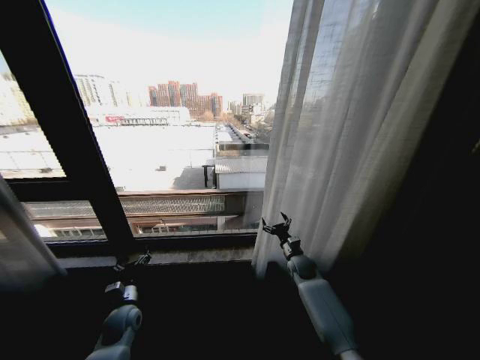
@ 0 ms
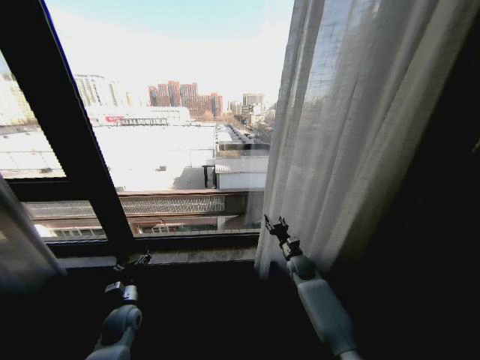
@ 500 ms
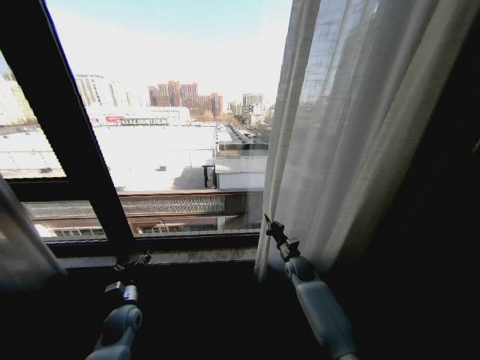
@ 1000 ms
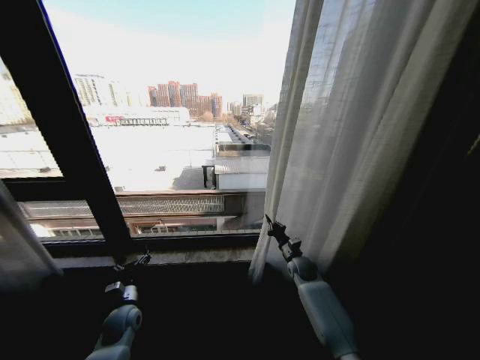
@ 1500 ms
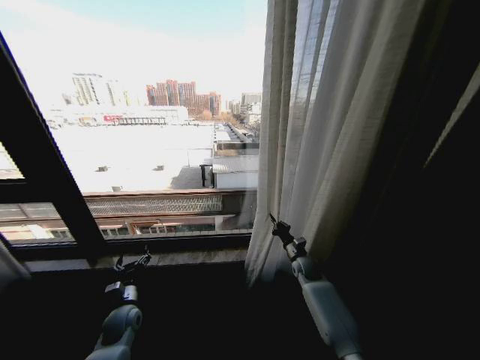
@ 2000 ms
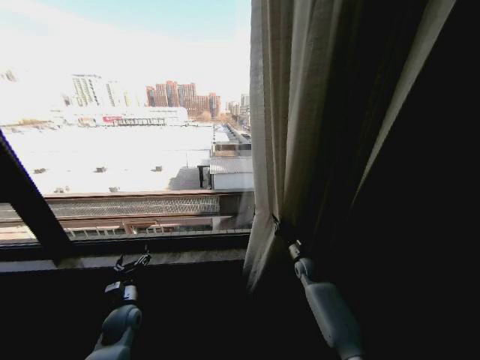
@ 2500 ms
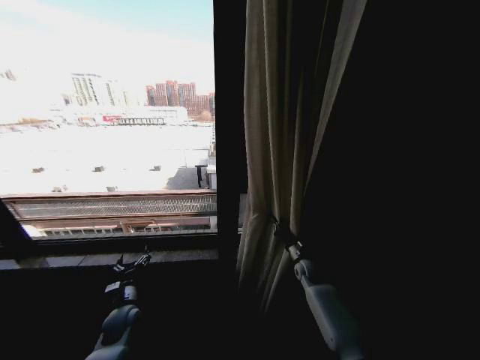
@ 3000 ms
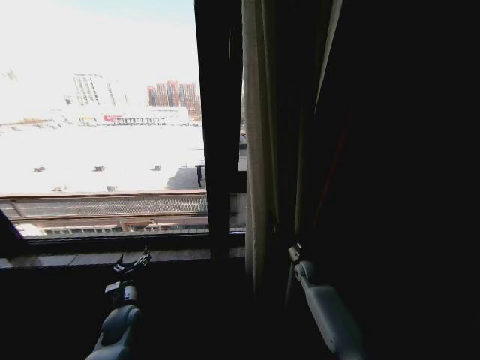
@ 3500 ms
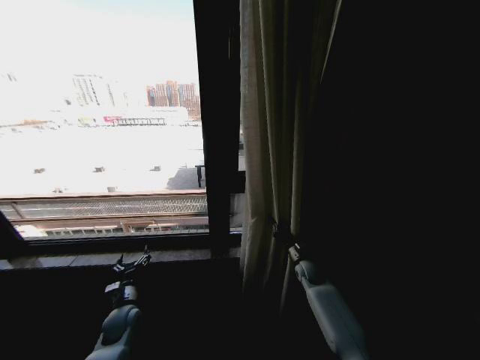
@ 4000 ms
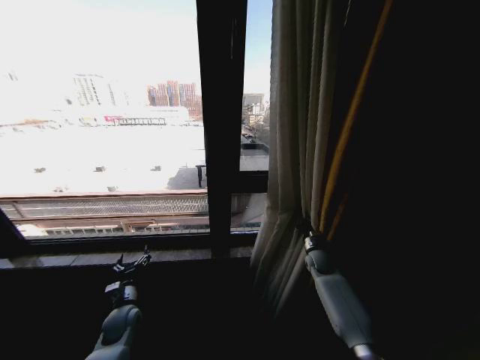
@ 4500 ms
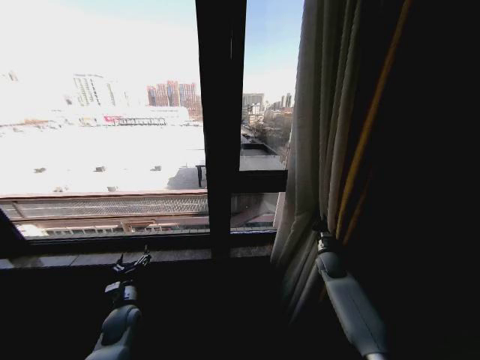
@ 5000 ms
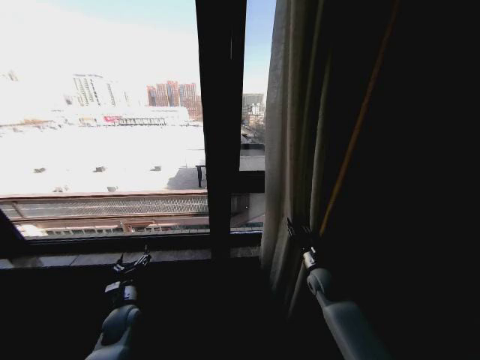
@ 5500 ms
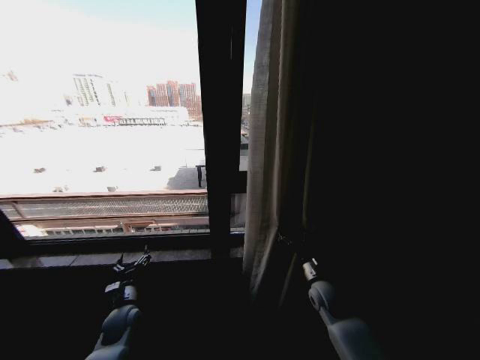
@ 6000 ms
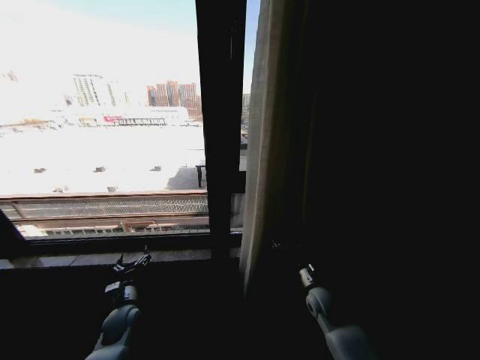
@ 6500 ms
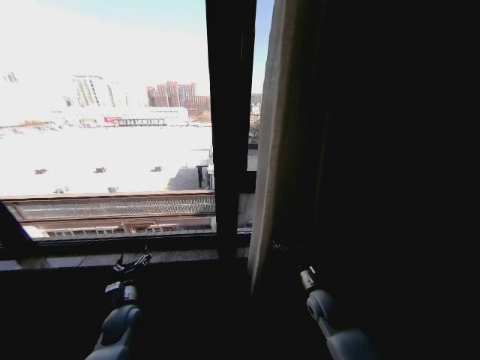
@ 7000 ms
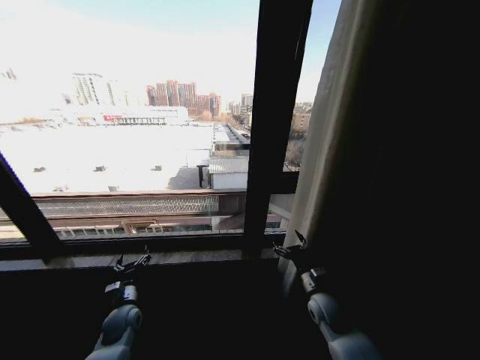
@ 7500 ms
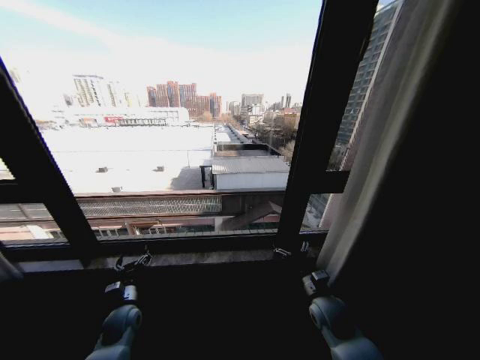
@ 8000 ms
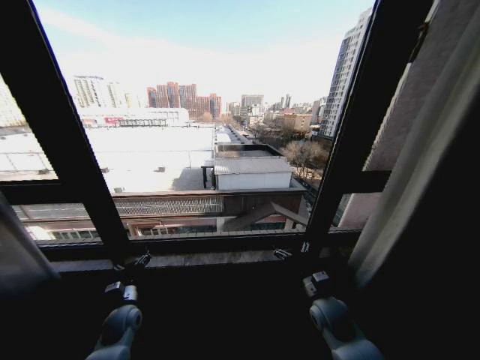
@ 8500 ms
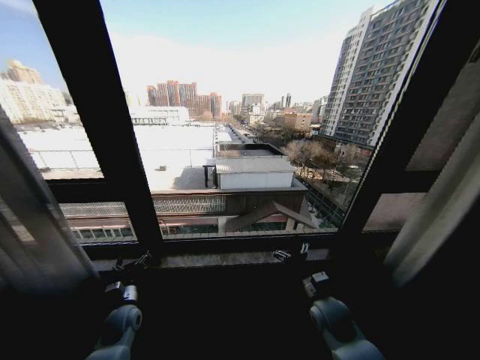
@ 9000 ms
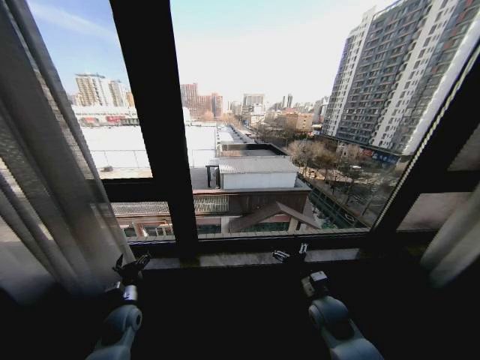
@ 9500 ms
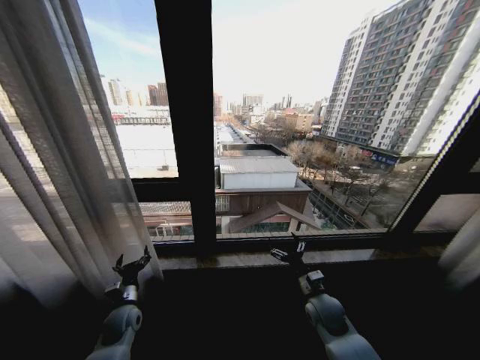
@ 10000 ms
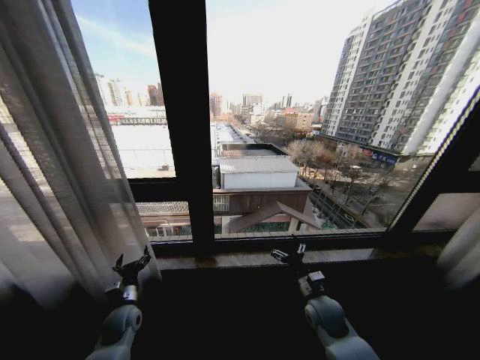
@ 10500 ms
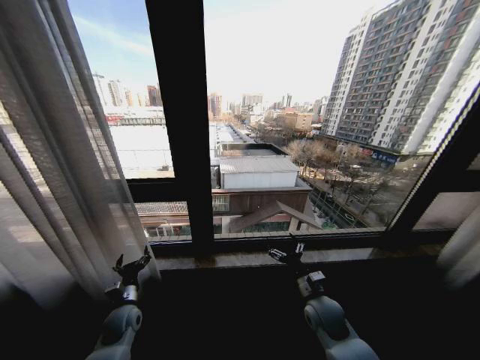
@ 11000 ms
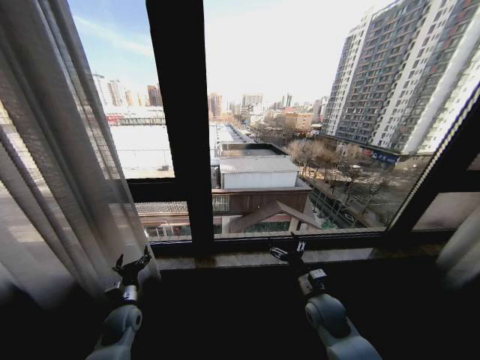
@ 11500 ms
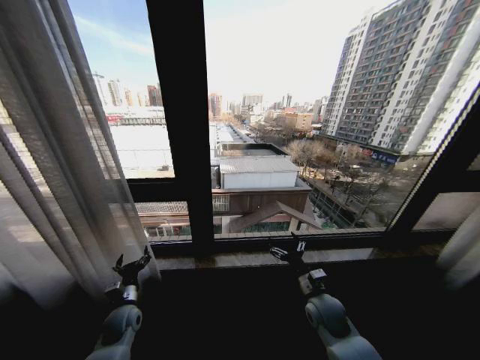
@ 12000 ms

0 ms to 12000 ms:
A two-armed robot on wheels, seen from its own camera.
Task of the whole recording: Open the curtains by pulling them apart, changing their state from closed to fully open.
0 ms to 2000 ms: The right gripper closes its fingers.
4000 ms to 6000 ms: The right gripper travels backward by some 10 cm, and opens.
10000 ms to 12000 ms: There are only small adjustments of the grippers.

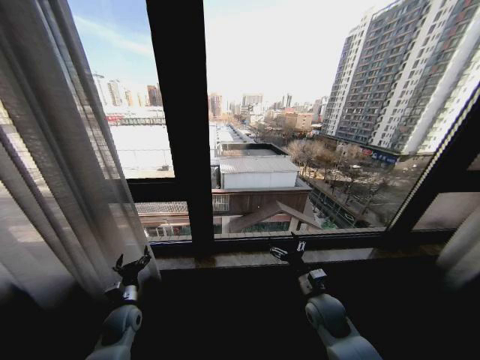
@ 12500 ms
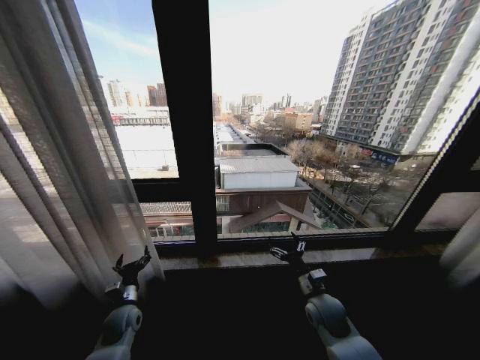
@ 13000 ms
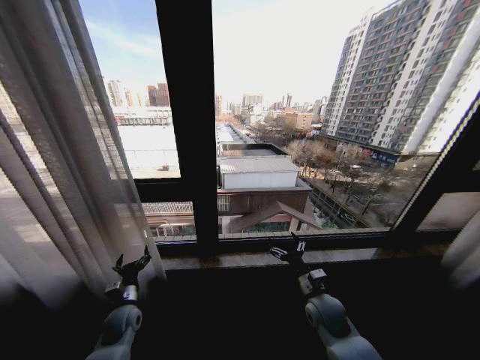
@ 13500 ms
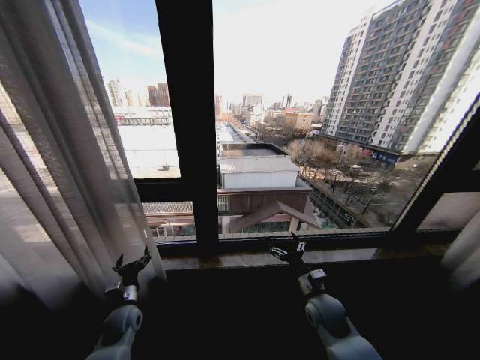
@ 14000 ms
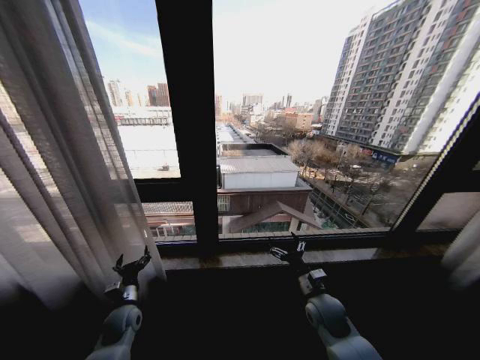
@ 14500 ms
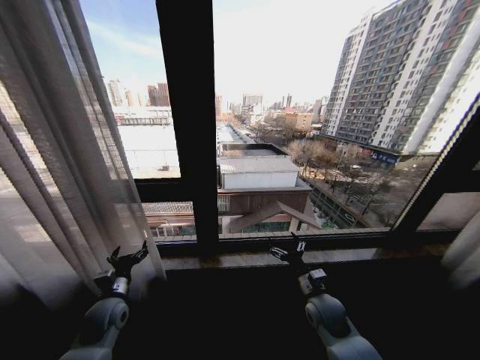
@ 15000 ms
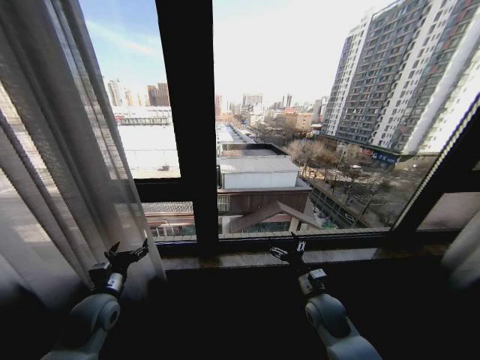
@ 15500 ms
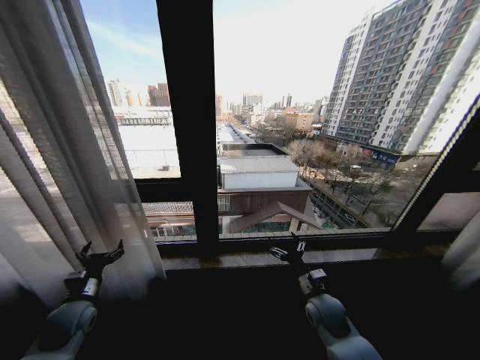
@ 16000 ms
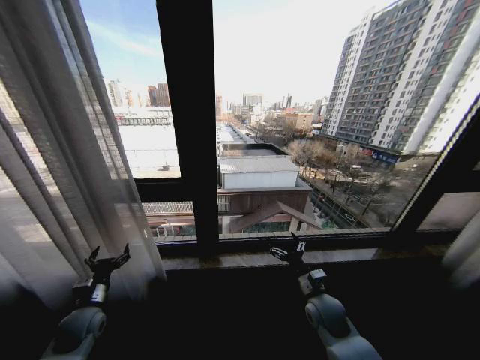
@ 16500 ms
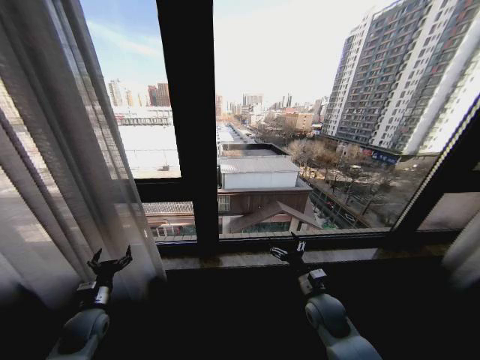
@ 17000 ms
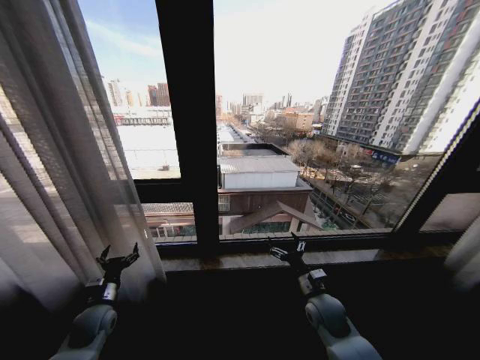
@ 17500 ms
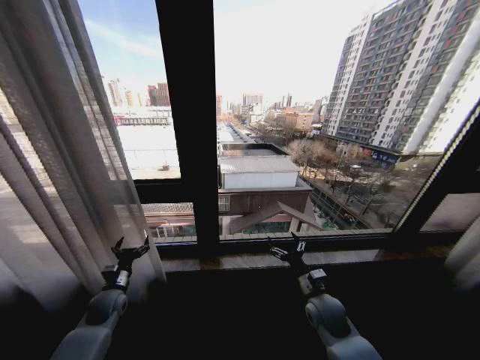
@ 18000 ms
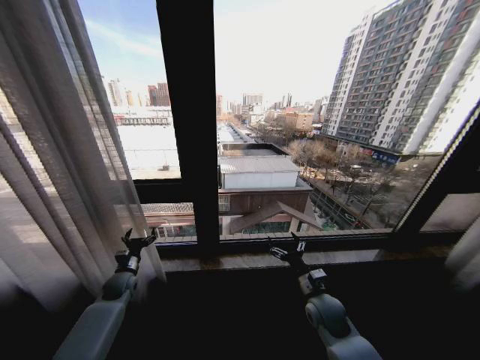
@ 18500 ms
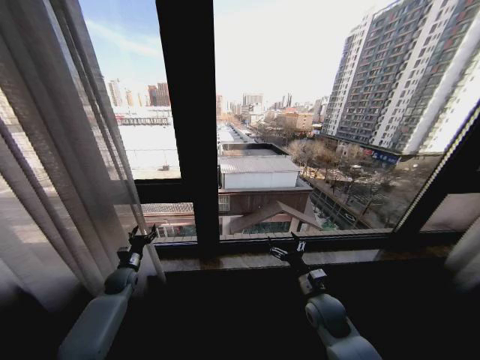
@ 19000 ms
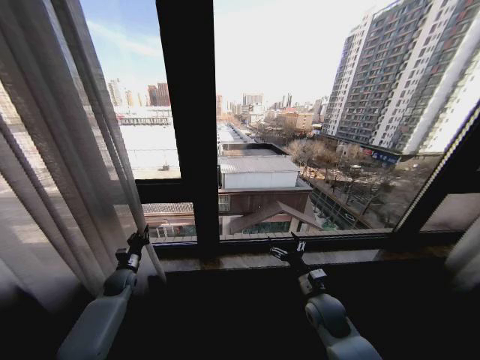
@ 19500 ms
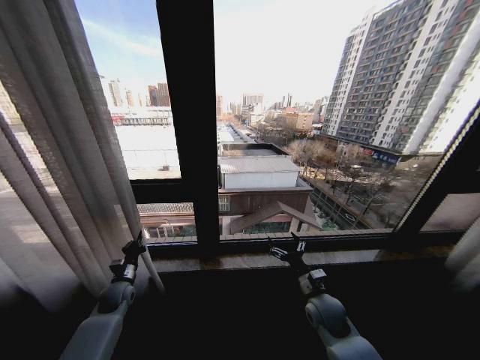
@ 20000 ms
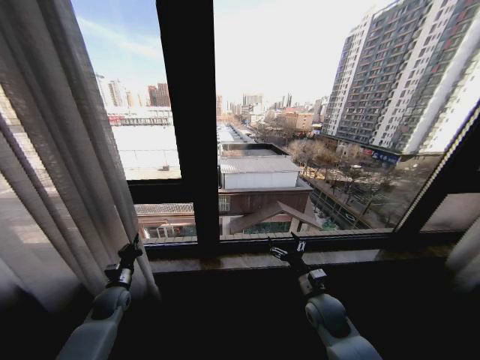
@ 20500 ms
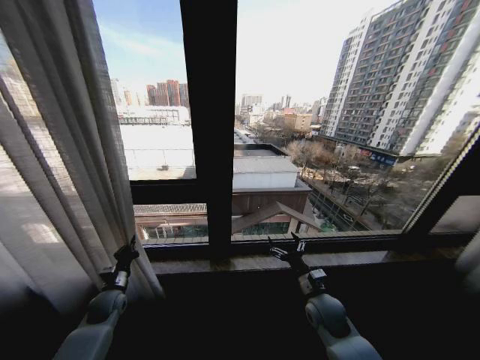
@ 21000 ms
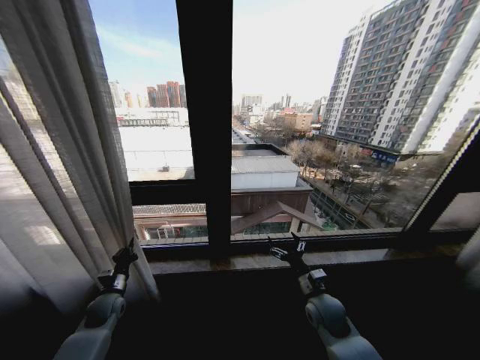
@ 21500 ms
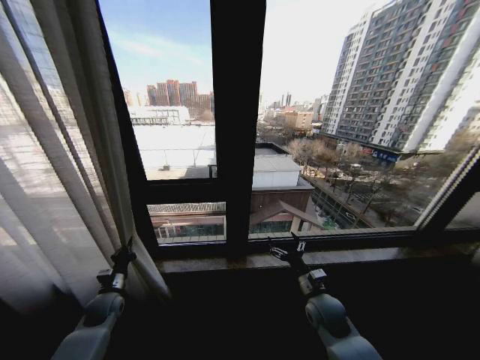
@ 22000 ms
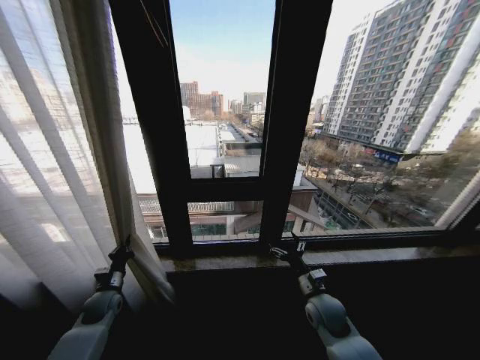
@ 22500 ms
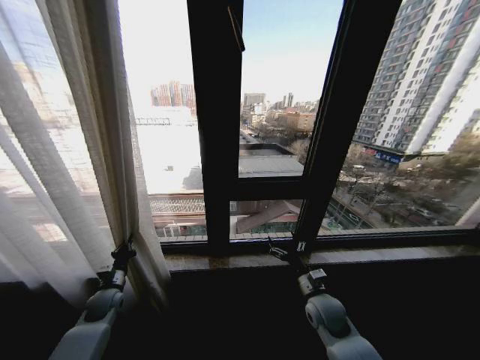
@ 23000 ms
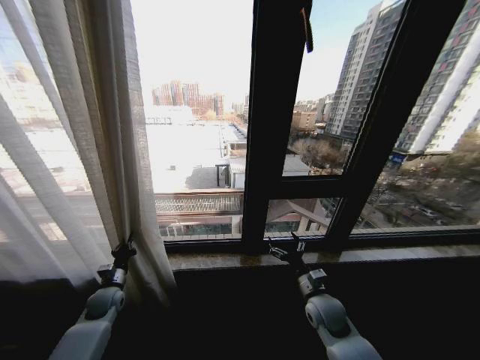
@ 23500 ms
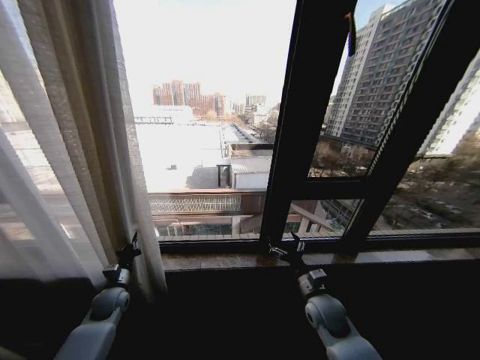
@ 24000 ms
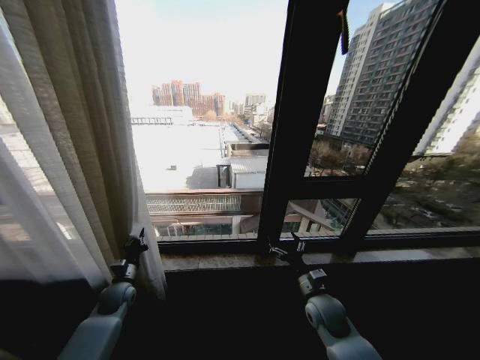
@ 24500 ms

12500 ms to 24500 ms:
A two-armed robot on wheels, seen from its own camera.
Task of the whole recording: Open the curtains by pulling them apart, changing their state from closed to fully open.
12500 ms to 14500 ms: The two grippers keep their place.
14500 ms to 16500 ms: The left gripper moves to the left and upward, approximately 10 cm.
16500 ms to 18500 ms: The left gripper travels forward by about 10 cm.
18500 ms to 20500 ms: The left gripper closes.

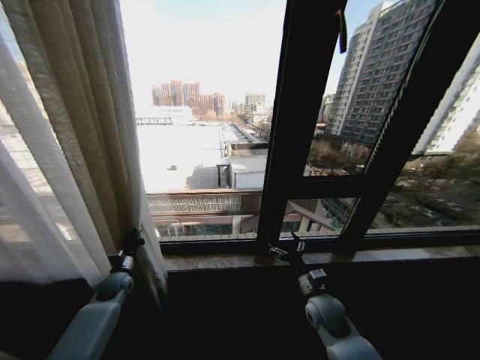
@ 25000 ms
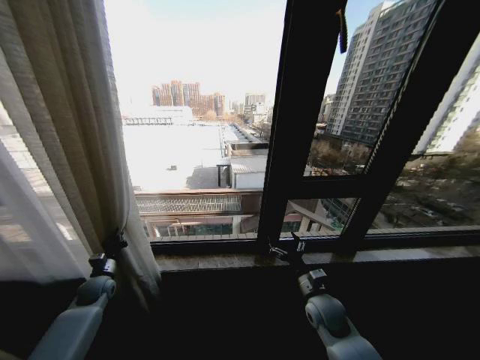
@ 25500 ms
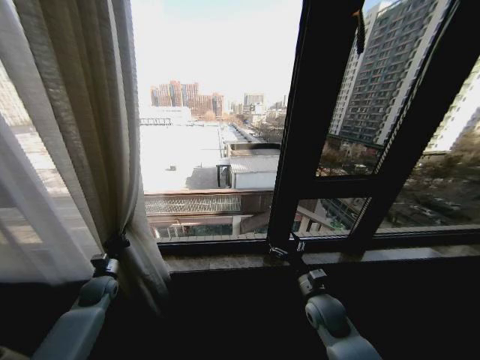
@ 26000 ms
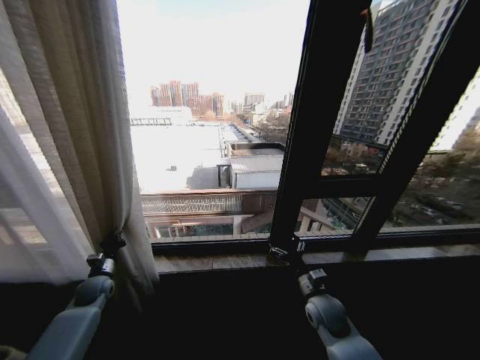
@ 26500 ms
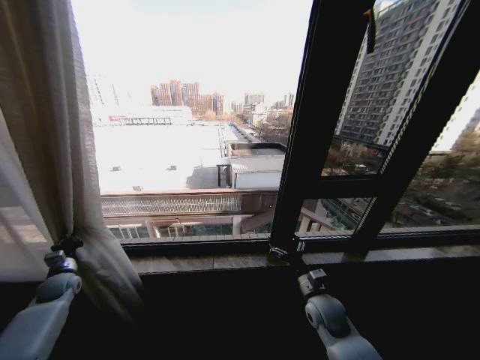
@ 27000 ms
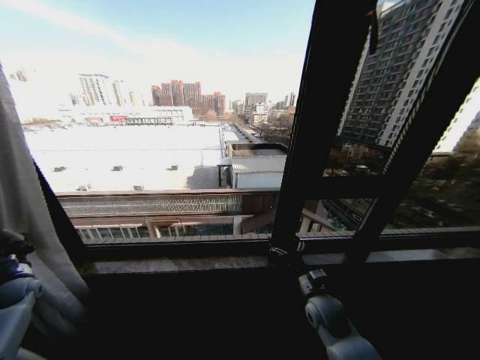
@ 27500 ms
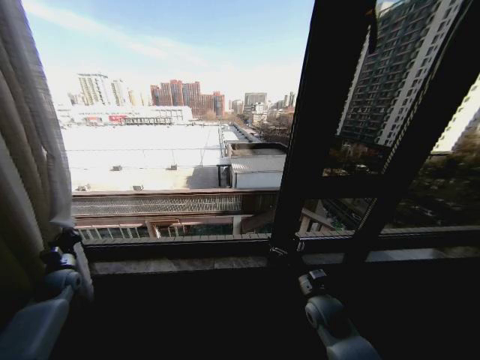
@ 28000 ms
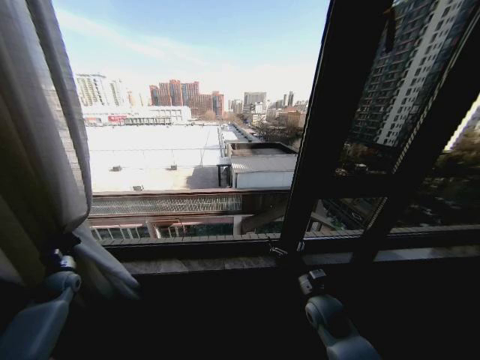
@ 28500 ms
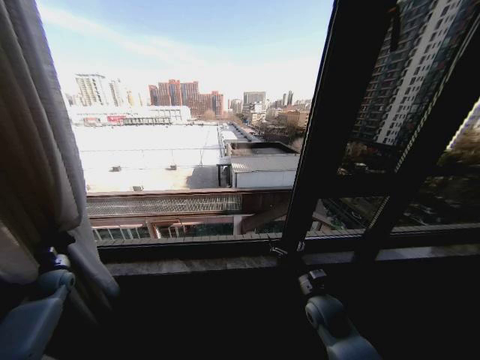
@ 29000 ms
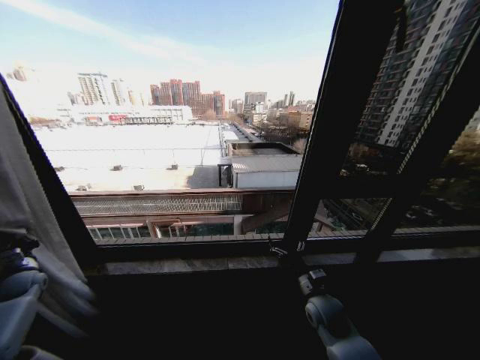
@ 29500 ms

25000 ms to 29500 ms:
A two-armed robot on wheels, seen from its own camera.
Task of the whole recording: Open the curtains by pulling them apart, changing their state from closed to fully open.
25000 ms to 27000 ms: The left gripper goes approximately 15 cm to the left.
27000 ms to 29500 ms: The left gripper moves left and right over some 10 cm, changing direction 2 times.
